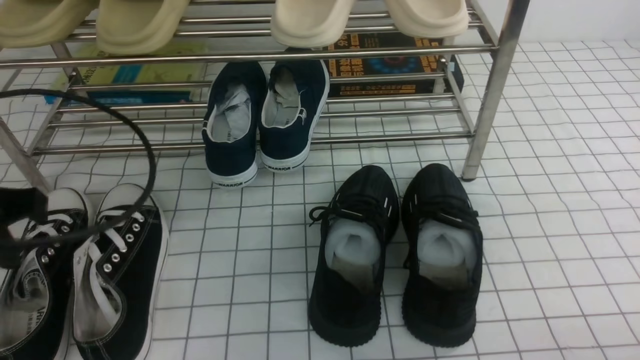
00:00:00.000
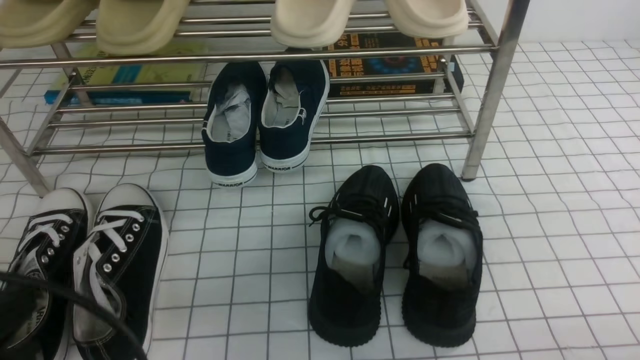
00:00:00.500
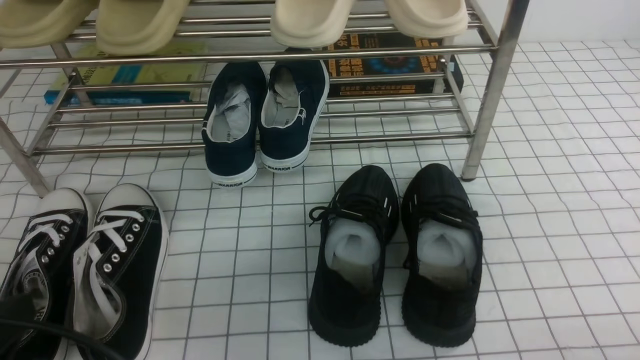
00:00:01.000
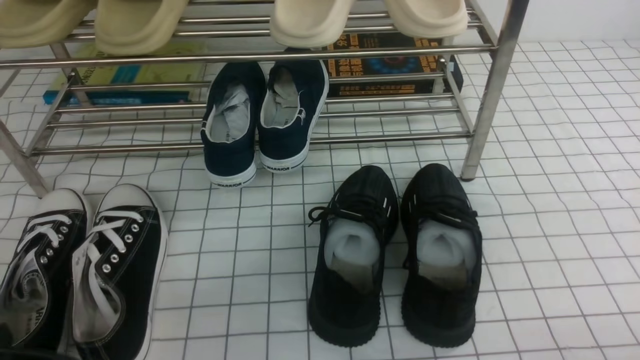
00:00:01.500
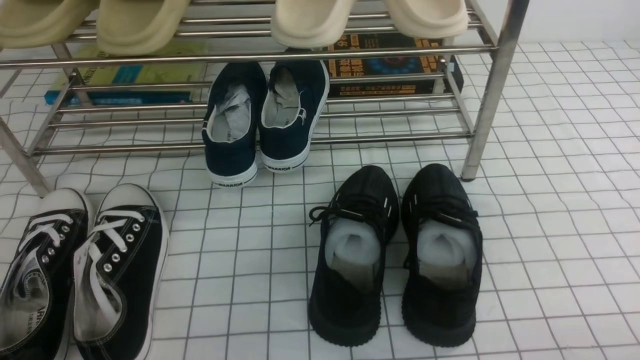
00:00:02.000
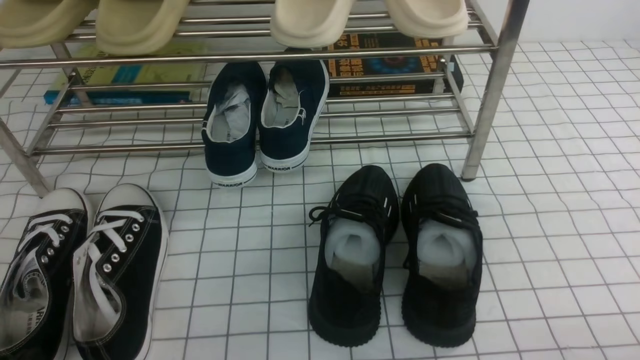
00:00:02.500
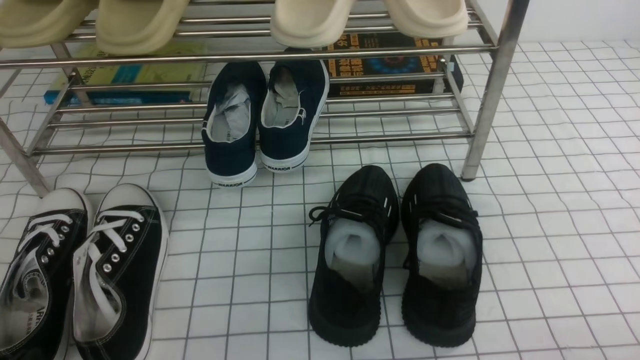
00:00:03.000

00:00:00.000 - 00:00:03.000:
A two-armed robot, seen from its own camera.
00:00:00.000 - 00:00:01.500: The left gripper shifts approximately 15 cm backward and downward.
